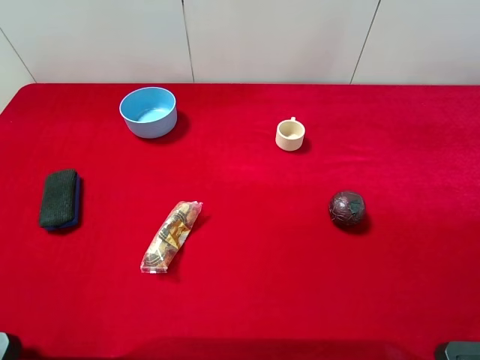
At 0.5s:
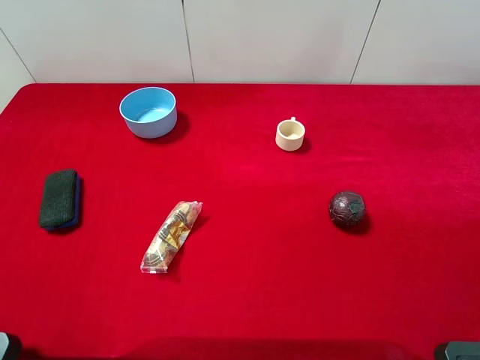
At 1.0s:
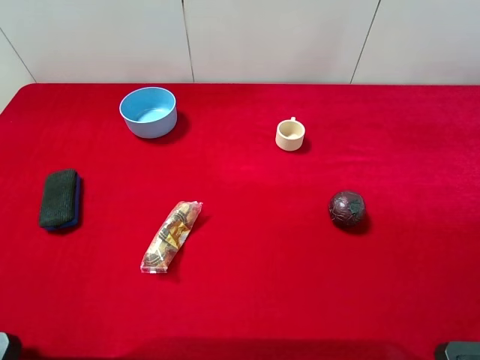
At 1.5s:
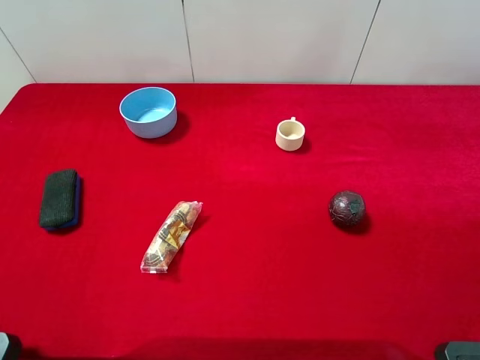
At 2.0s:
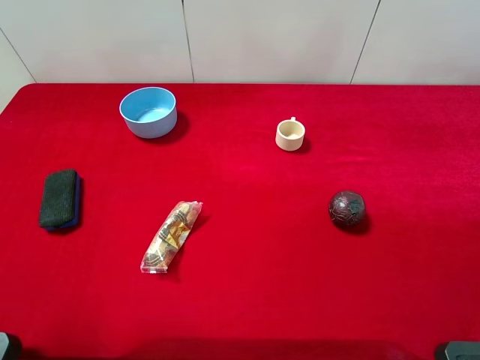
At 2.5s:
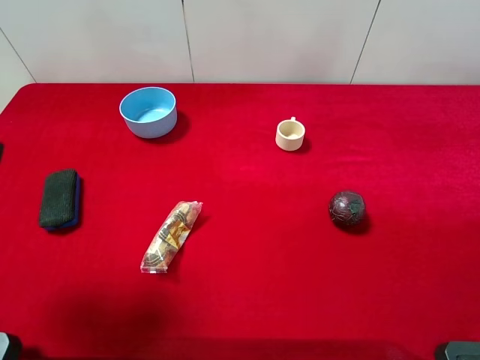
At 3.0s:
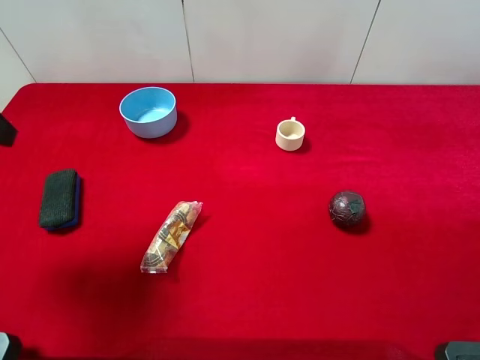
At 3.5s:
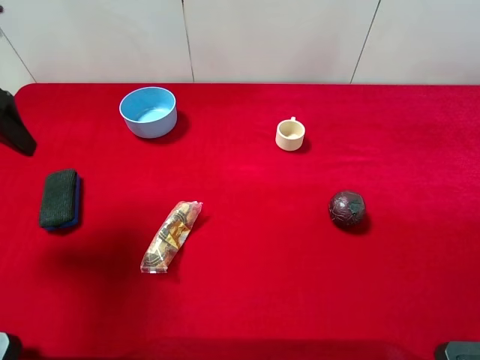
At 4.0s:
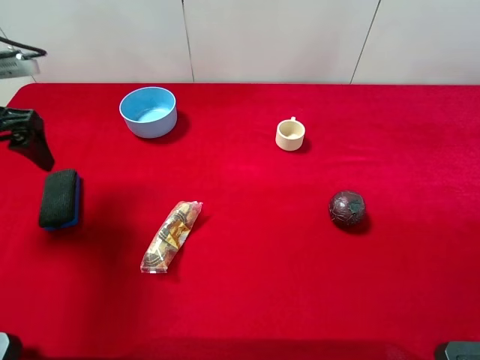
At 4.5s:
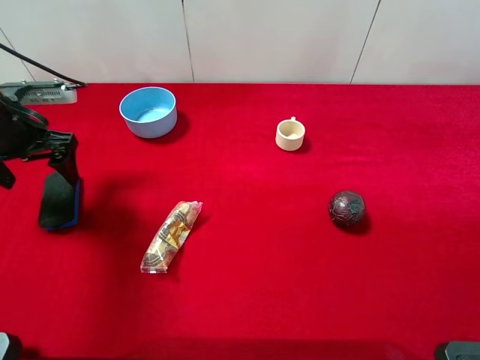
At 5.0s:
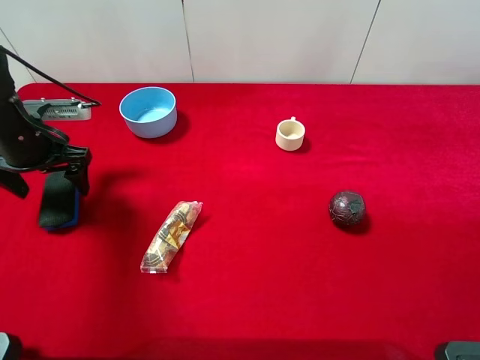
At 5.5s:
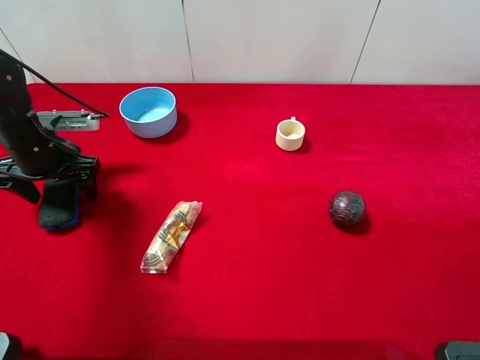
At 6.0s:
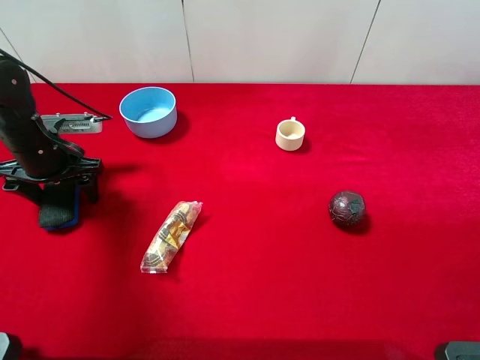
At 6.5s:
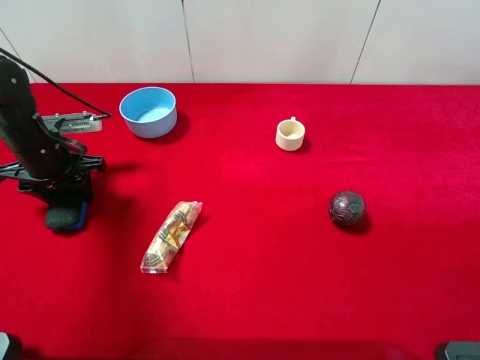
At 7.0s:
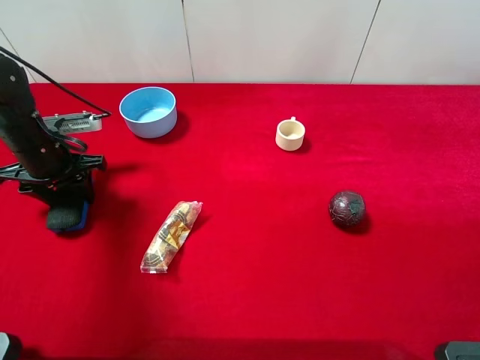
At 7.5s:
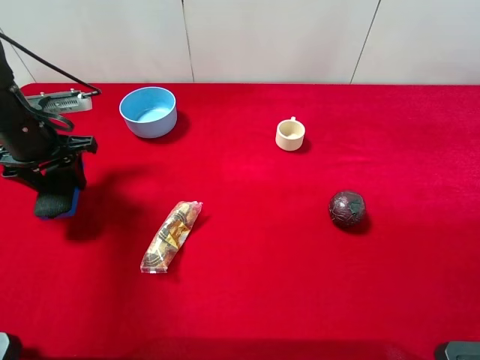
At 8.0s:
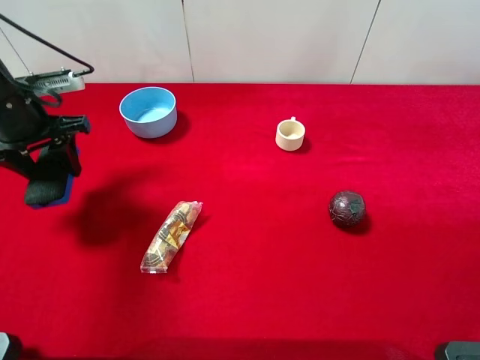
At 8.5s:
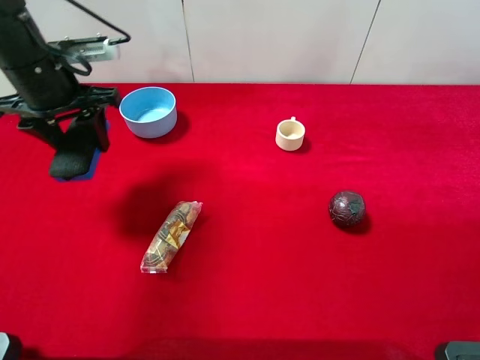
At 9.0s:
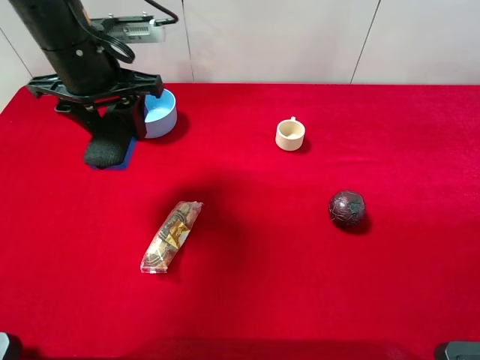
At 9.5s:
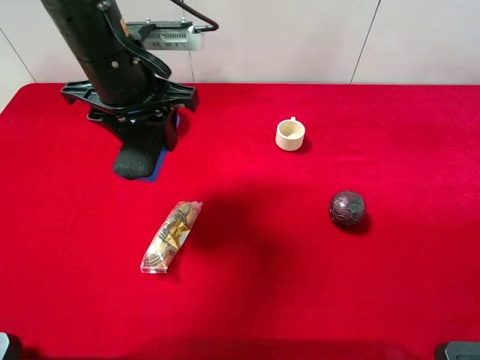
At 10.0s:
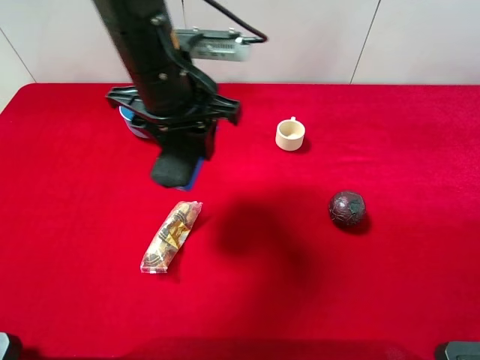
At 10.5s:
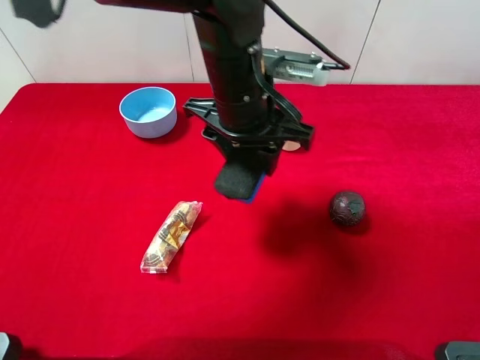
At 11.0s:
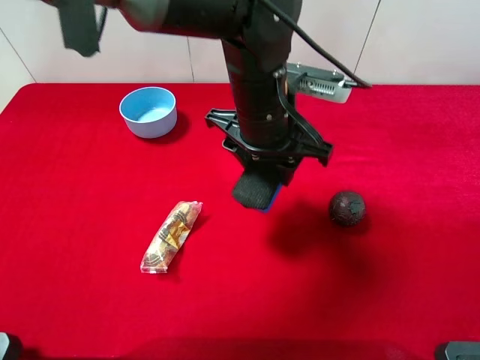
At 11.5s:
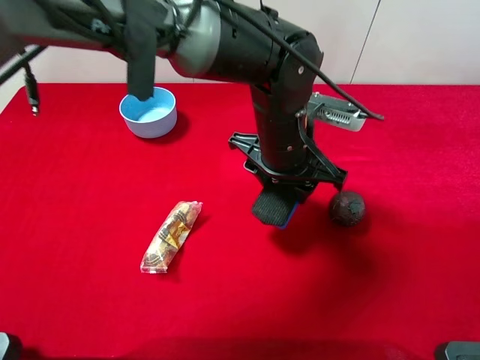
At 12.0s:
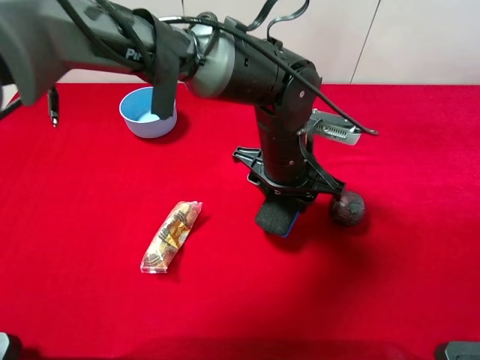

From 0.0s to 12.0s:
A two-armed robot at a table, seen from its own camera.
Task of the whole recording: the gripper move the object.
Step, from 0.0s to 6.5s: Grasp the blue blackboard erasure with the left gripper.
From 2.0s to 4.0s: The left gripper travels forward and downward by roughly 20 cm.
From 4.0s to 6.0s: The left gripper goes about 10 cm downward.
From 6.0s to 8.0s: The left gripper is displaced upward by roughly 10 cm, and closes its fingers.
From 8.0s to 10.0s: The left gripper shifts approximately 20 cm to the right.
From 10.0s to 12.0s: The left gripper travels to the right and downward by approximately 15 cm.

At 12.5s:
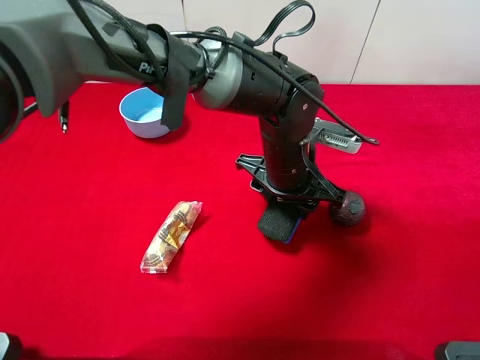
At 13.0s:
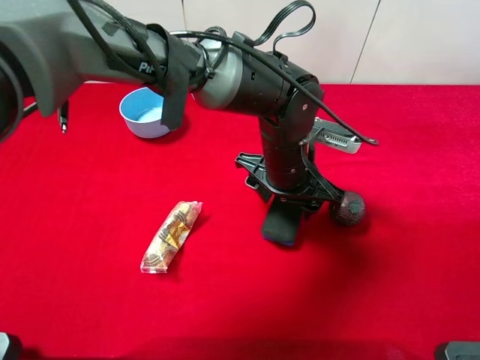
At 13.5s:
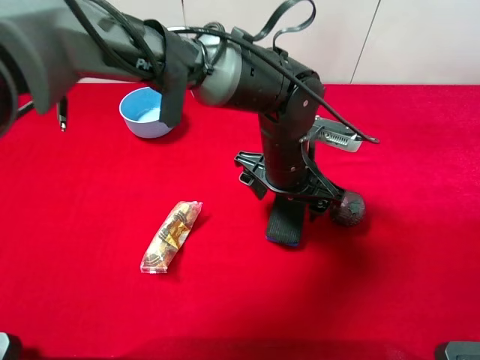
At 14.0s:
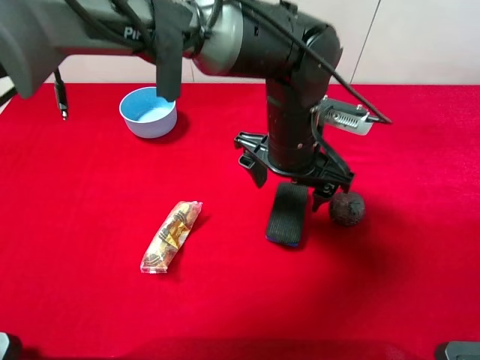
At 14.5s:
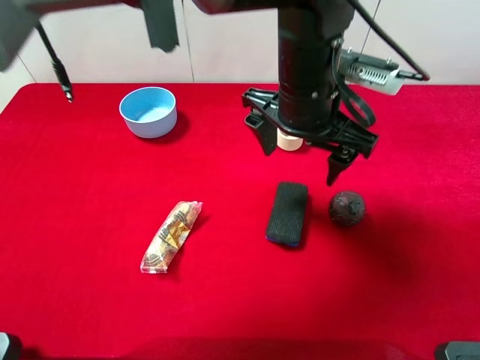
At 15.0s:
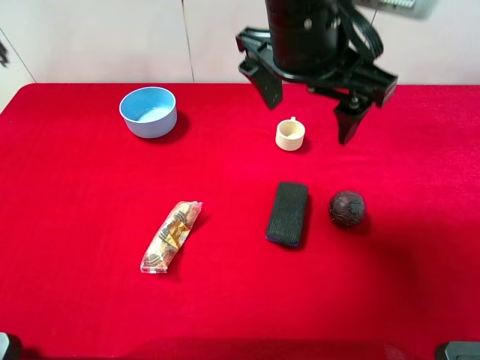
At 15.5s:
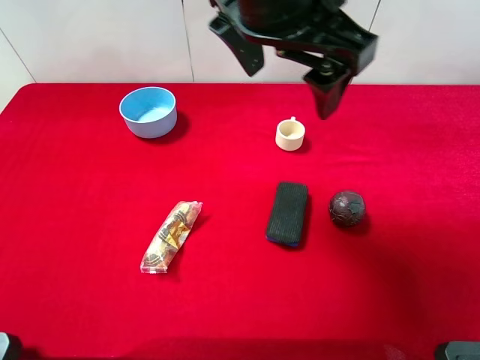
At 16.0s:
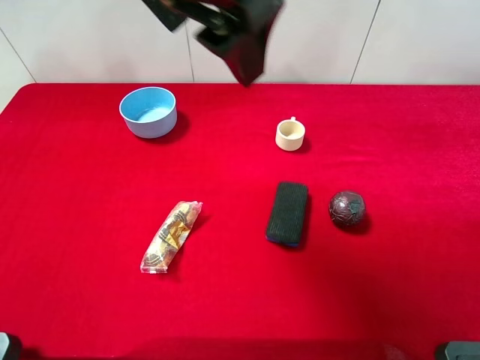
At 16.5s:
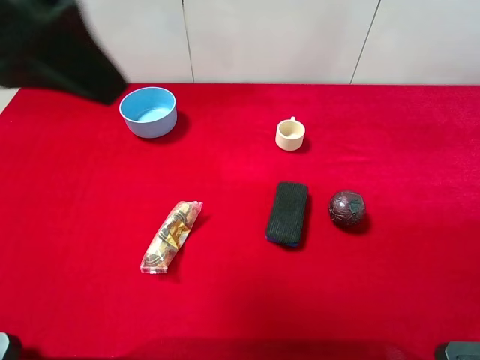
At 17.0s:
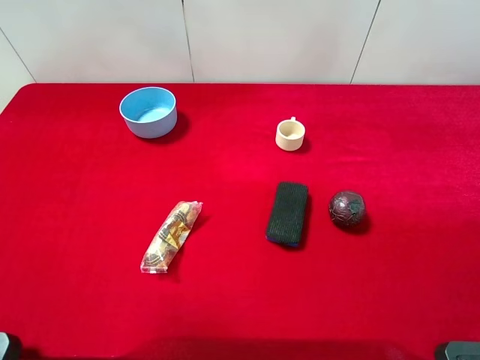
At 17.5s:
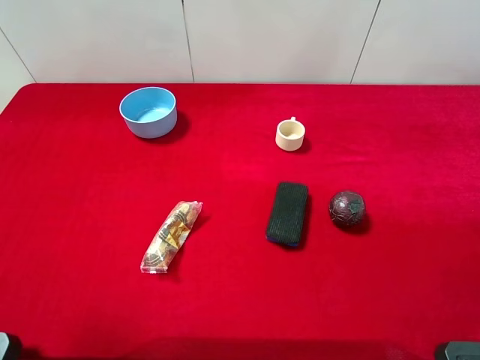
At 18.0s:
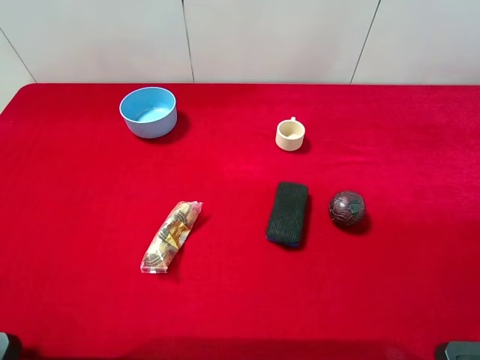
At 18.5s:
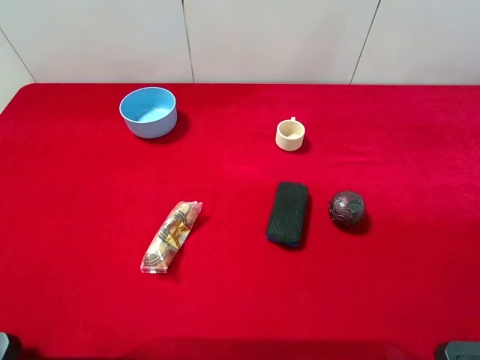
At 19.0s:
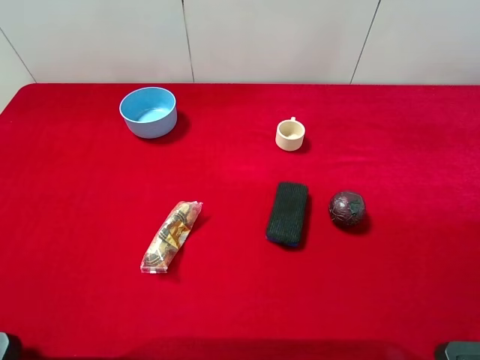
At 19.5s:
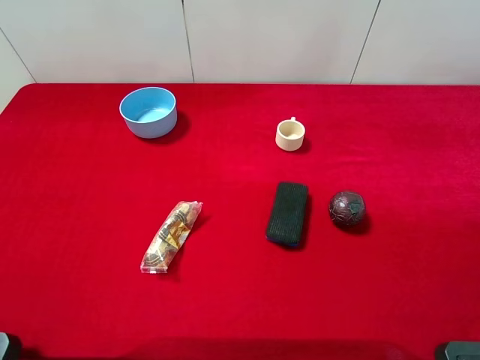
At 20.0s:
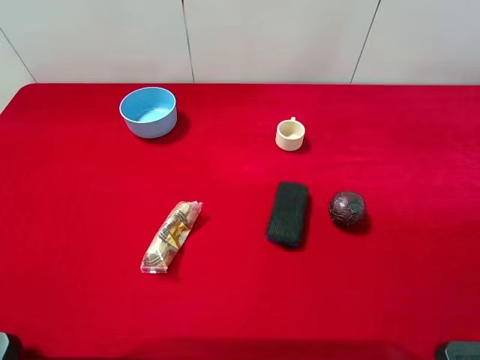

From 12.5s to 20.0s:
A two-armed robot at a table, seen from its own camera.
Task of the whole recording: the gripper move the object.
From 12.5s to 14.5s: The left gripper is displaced upward by about 10 cm, and opens.
From 14.5s to 16.5s: The left gripper moves to the left, upward and backward, some 30 cm.
From 16.5s to 18.0s: The left gripper travels to the left, downward and backward by roughly 20 cm.

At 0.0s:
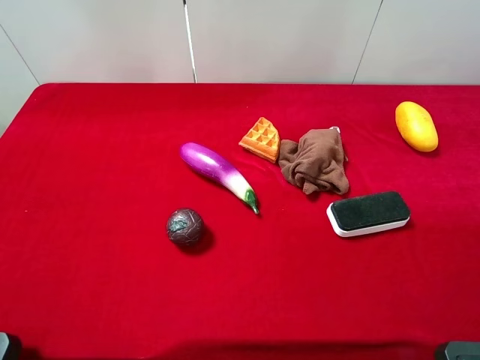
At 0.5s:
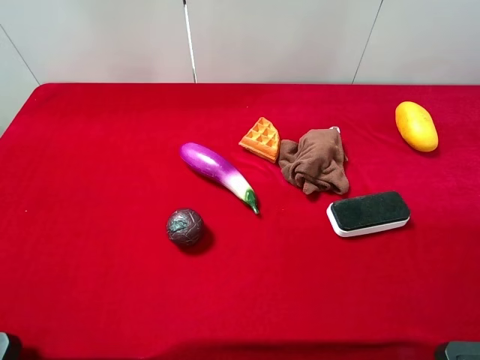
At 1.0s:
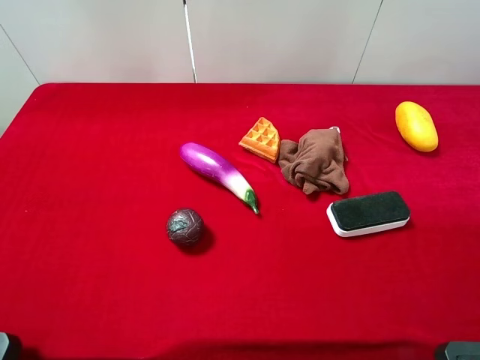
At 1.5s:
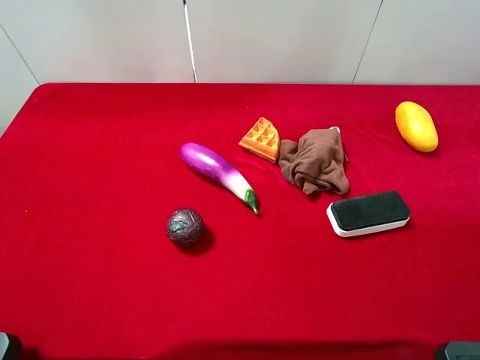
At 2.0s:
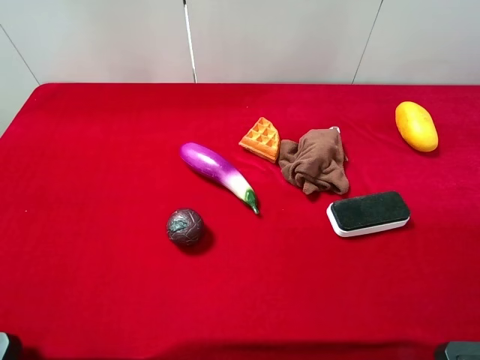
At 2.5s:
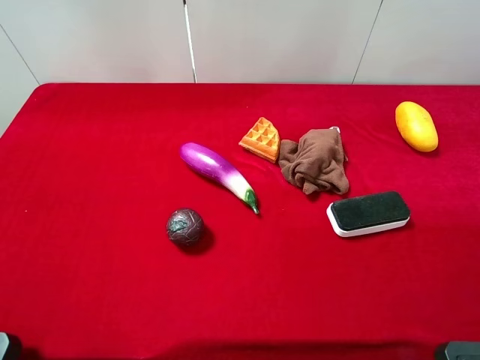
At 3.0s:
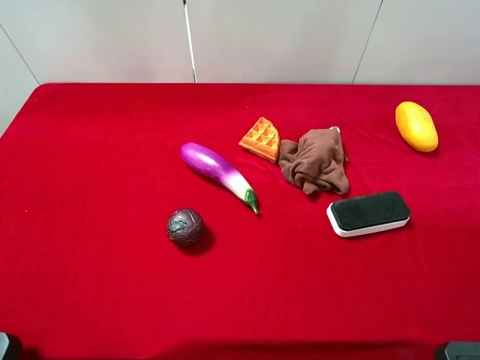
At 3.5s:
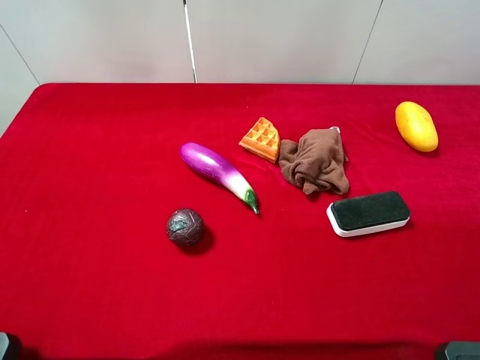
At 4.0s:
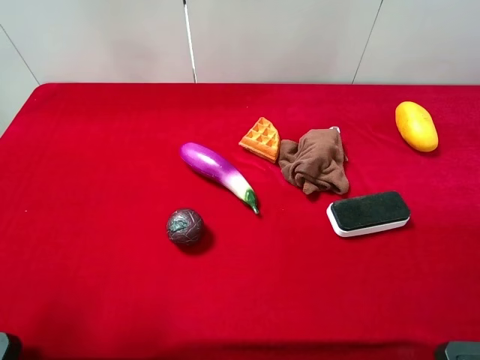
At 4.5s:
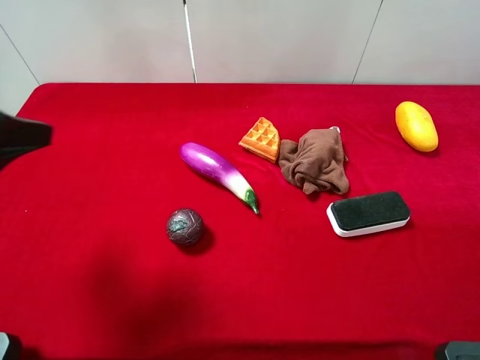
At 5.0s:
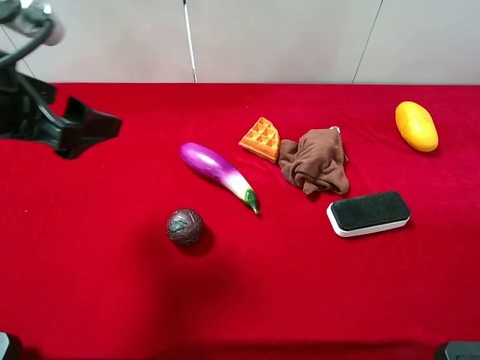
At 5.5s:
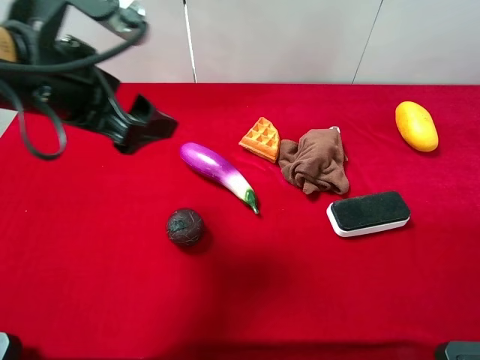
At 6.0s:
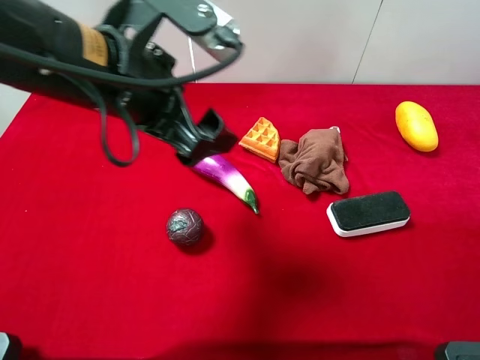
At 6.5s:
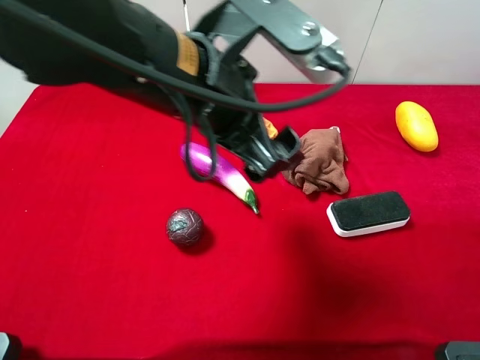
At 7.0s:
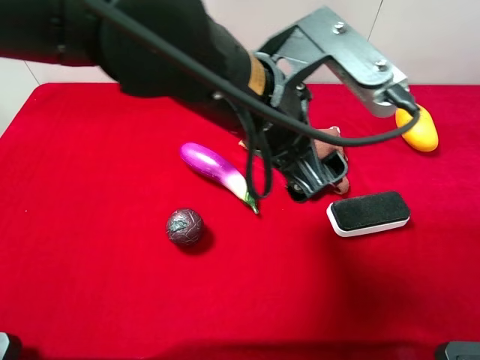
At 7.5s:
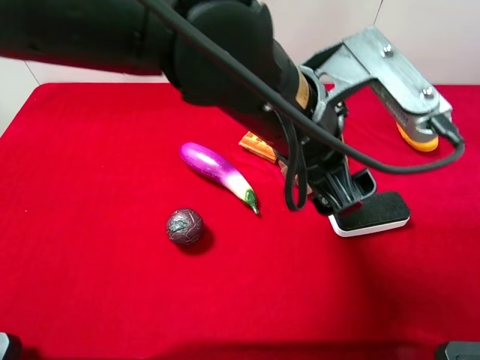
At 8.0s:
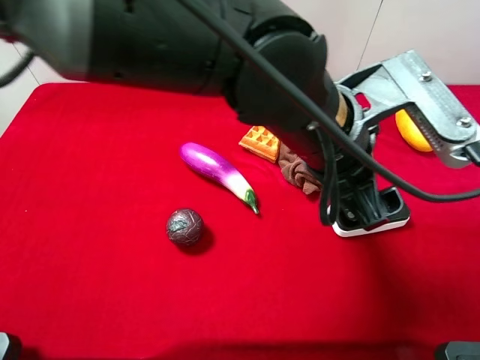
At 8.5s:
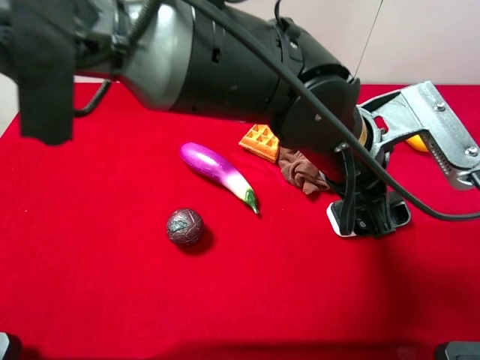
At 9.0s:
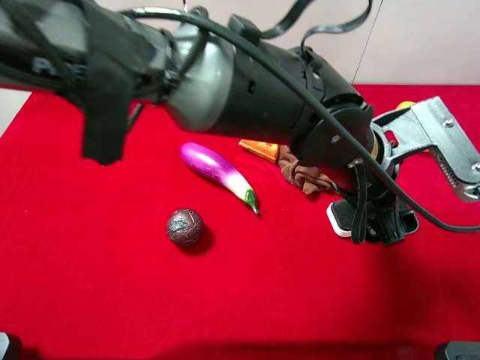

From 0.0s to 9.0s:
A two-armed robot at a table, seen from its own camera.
Task of the whole recording: the gripper move the object.
From 0.0s to 2.0s: Both grippers stay put.
From 2.0s to 4.5s: The left gripper travels forward and to the right by about 15 cm.
From 4.5s to 7.0s: The left gripper moves to the right, some 30 cm.
From 7.0s to 9.0s: The left gripper travels to the right and downward by about 10 cm.
